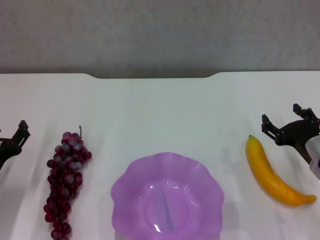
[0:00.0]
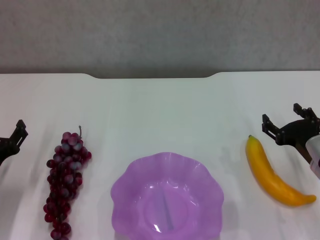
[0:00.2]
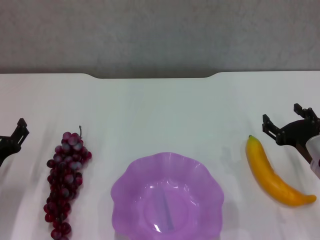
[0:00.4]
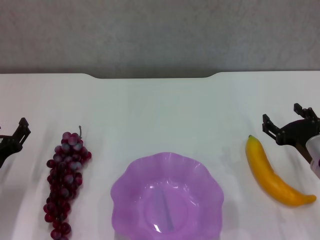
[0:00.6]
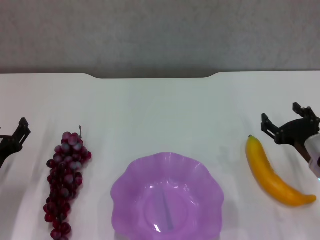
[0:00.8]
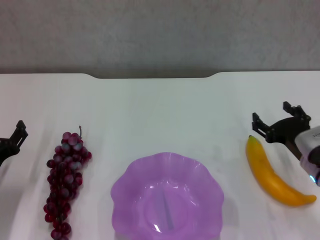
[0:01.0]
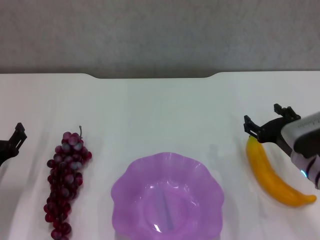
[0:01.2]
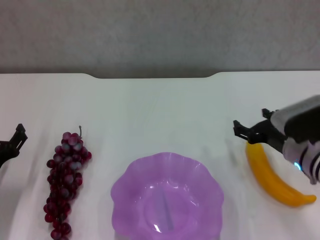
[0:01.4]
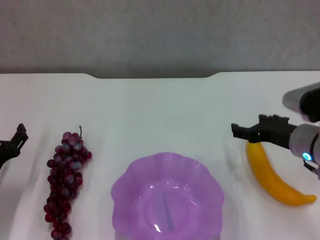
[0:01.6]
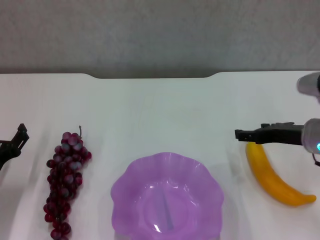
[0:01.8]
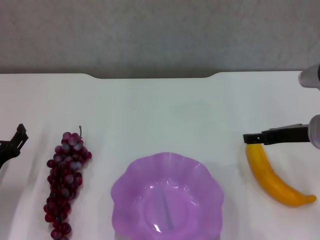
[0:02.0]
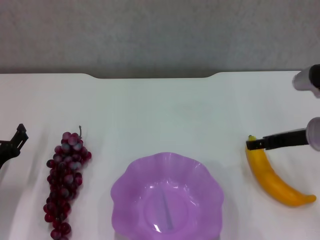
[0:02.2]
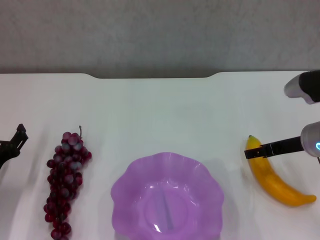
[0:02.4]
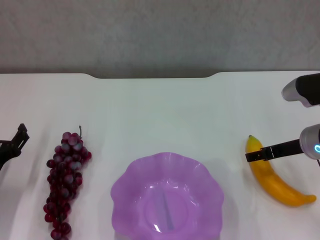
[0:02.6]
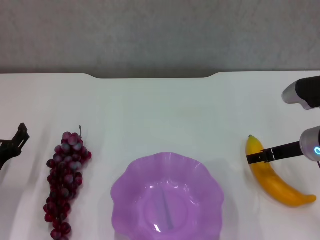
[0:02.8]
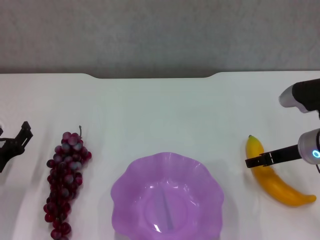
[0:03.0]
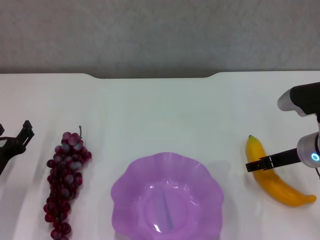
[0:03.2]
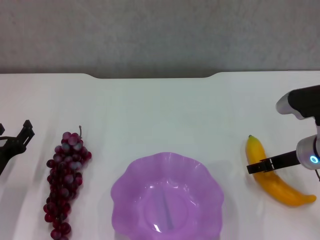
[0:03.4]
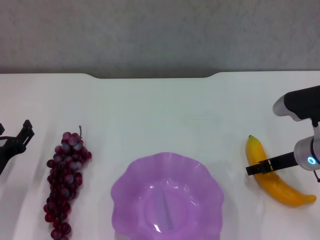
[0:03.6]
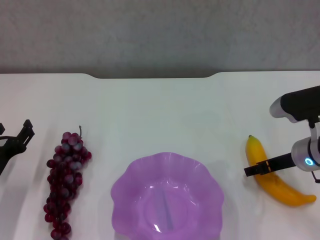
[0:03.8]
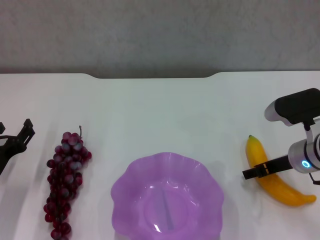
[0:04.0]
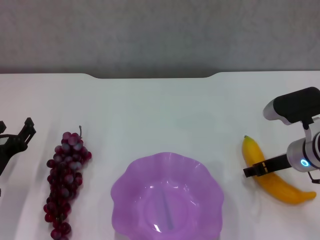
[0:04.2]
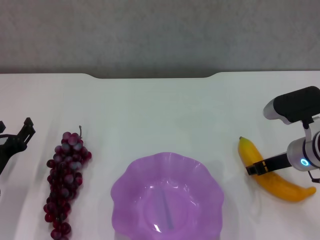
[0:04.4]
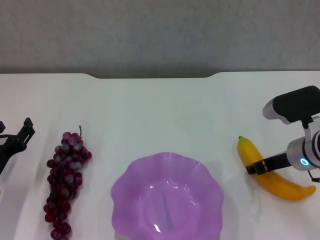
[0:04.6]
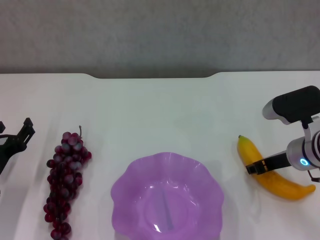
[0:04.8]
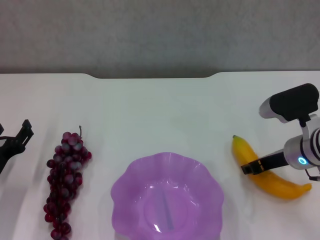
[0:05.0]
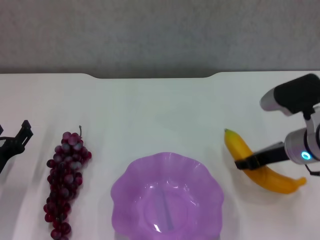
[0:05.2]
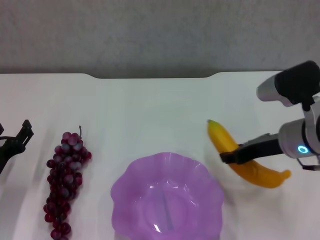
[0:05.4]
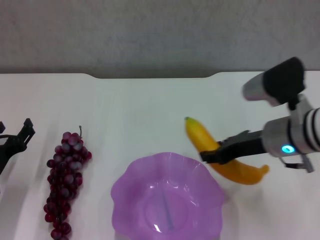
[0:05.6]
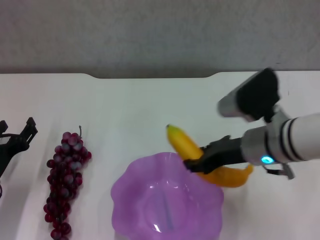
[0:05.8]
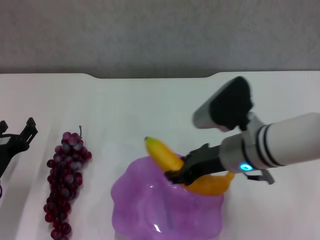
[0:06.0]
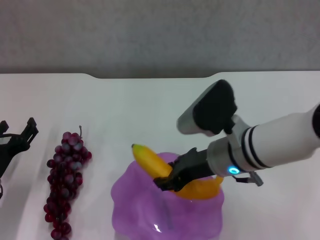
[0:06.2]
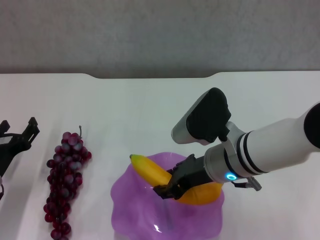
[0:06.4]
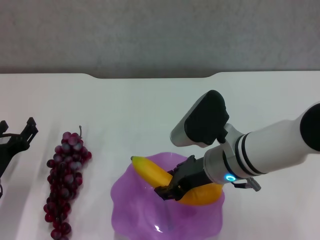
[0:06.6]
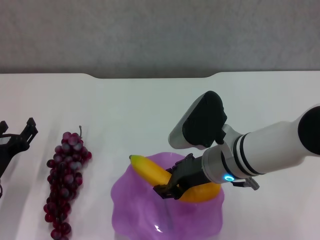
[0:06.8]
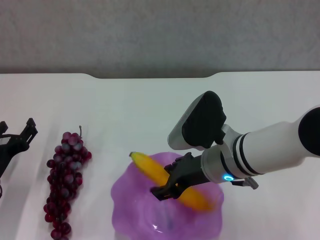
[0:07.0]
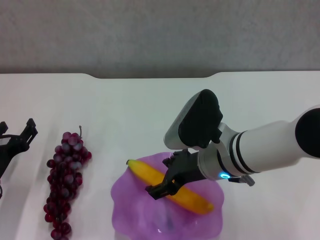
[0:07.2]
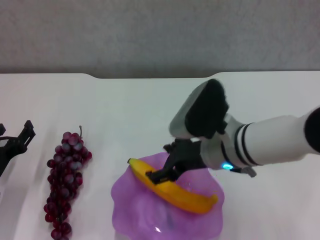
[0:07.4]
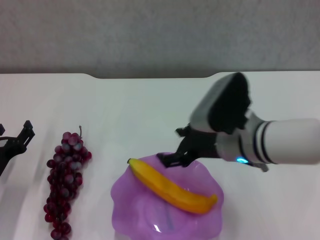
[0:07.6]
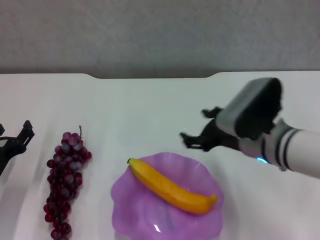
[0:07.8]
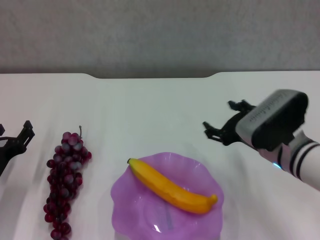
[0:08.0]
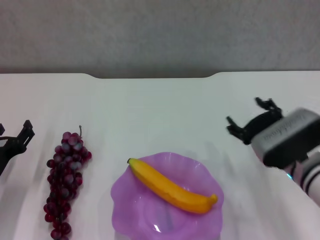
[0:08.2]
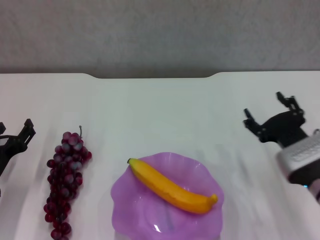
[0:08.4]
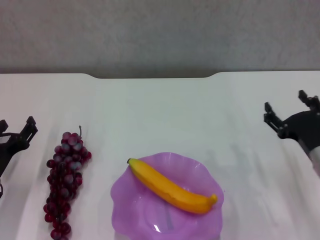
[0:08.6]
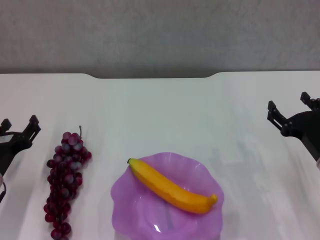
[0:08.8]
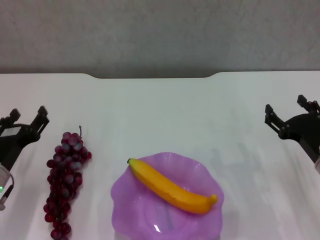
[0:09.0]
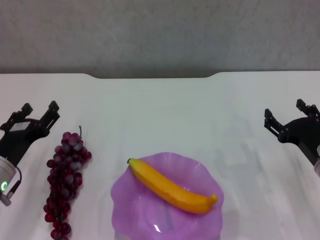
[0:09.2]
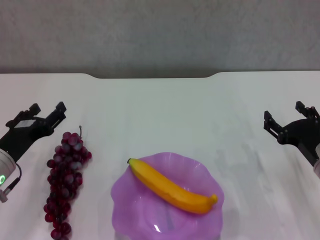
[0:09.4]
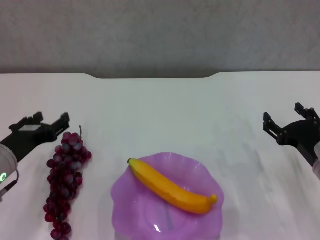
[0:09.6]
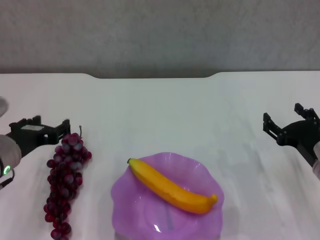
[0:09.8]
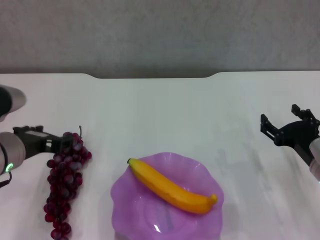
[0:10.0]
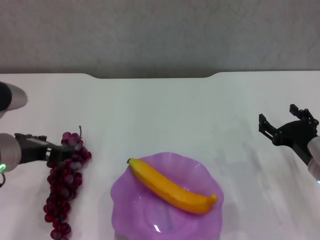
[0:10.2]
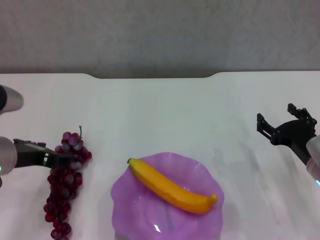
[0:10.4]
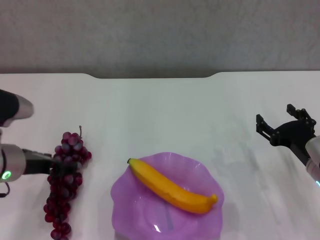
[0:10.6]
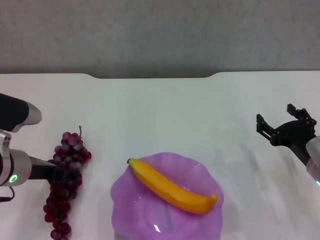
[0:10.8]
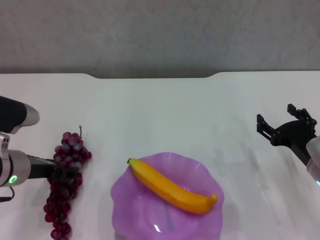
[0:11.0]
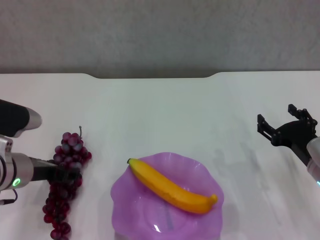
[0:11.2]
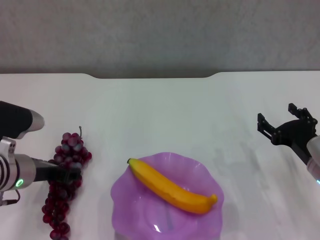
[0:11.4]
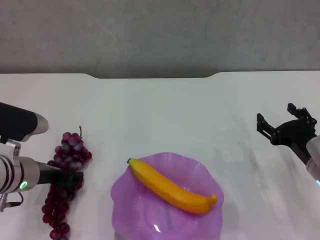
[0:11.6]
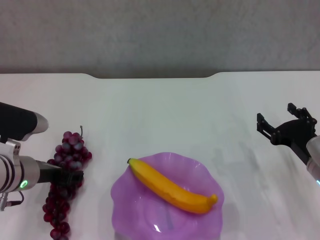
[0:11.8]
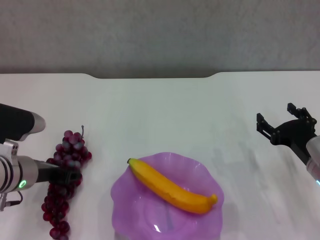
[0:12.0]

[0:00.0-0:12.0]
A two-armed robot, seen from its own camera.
Step, 0:00.0 to 0:04.4: Grasp the banana with right gripper.
Step, 0:04.6 to 0:07.6: Place the banana in the purple plate with right gripper.
0:00.0 to 0:01.6: The right gripper moves upward, some 5 cm.
0:03.0 to 0:04.4: The right gripper closes its fingers.
0:04.4 to 0:06.0: The right gripper heads to the left and upward, covering about 10 cm, and closes its fingers.
0:06.0 to 0:07.6: The right gripper opens its fingers.
0:07.6 to 0:09.0: The right gripper goes some 15 cm to the right and downward.
0:09.0 to 0:10.4: The left gripper shifts some 10 cm upward.
0:10.4 to 0:12.0: The left gripper travels downward by approximately 5 cm.

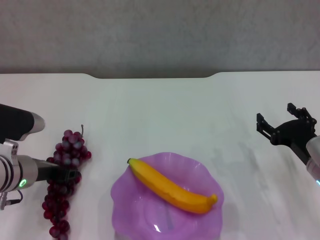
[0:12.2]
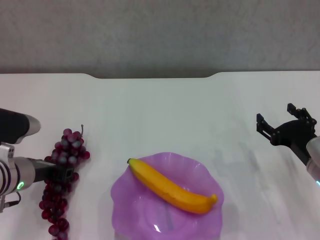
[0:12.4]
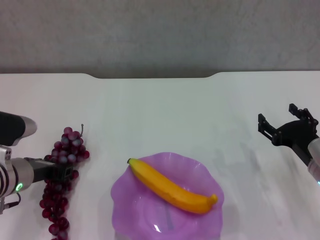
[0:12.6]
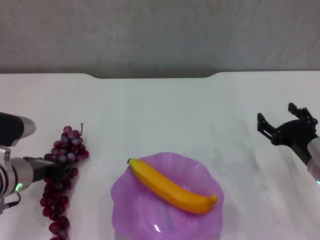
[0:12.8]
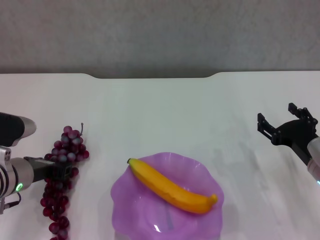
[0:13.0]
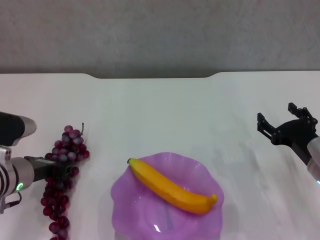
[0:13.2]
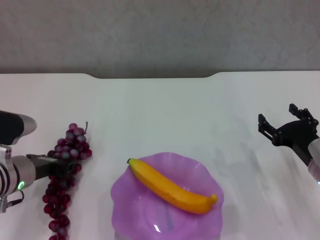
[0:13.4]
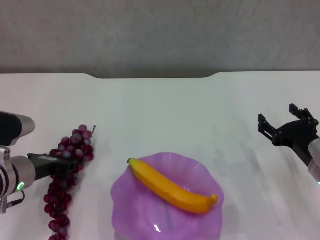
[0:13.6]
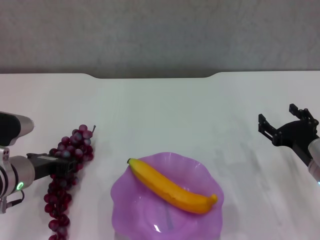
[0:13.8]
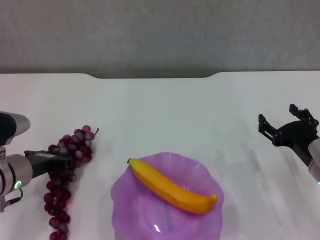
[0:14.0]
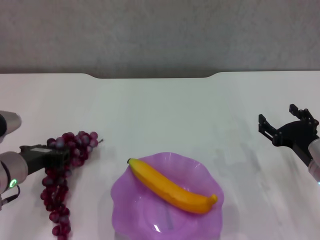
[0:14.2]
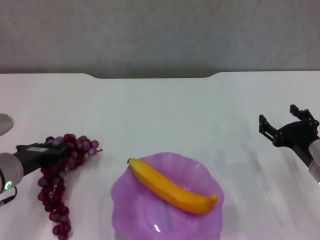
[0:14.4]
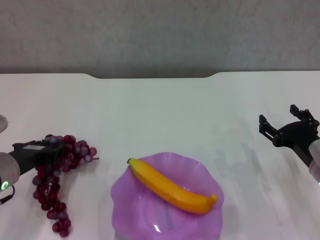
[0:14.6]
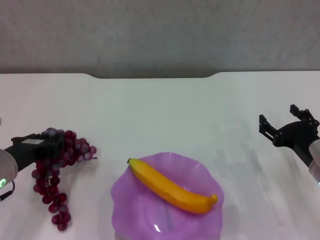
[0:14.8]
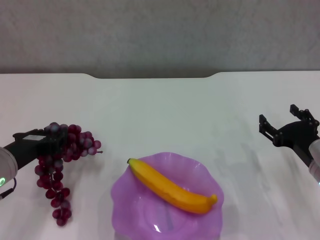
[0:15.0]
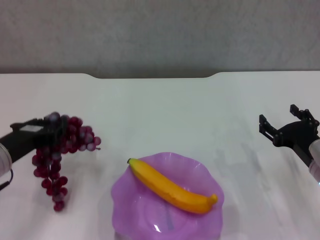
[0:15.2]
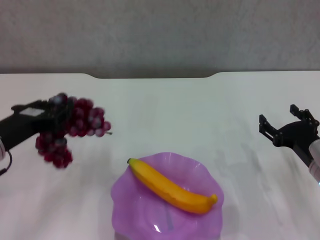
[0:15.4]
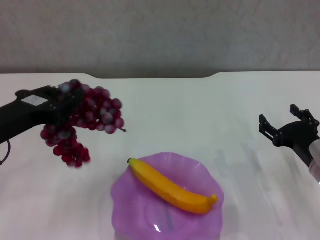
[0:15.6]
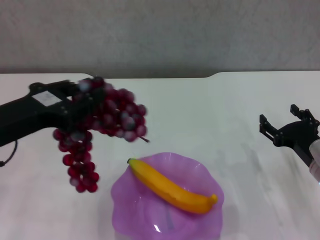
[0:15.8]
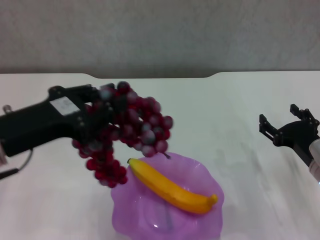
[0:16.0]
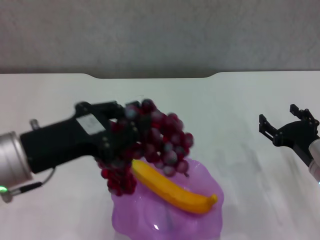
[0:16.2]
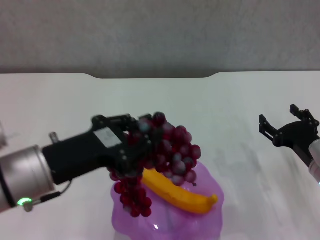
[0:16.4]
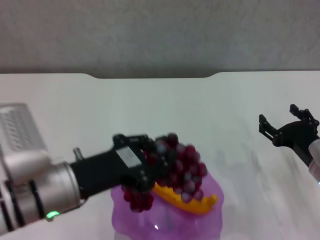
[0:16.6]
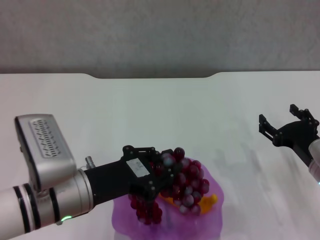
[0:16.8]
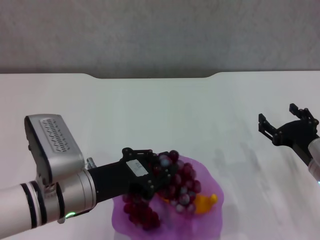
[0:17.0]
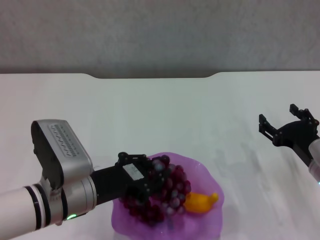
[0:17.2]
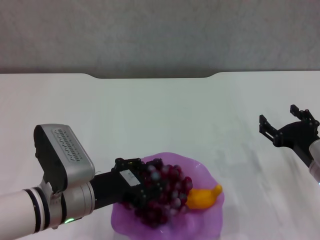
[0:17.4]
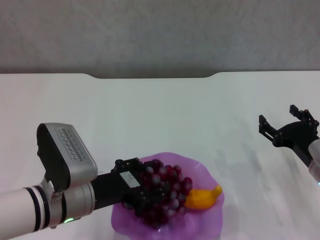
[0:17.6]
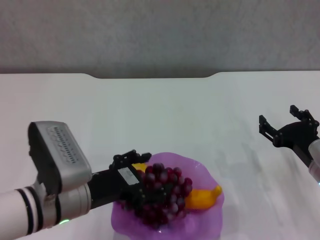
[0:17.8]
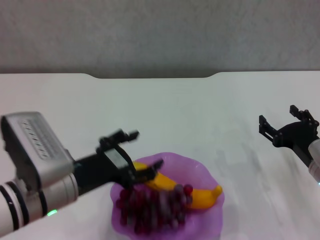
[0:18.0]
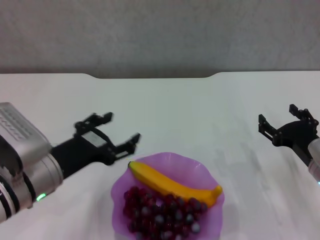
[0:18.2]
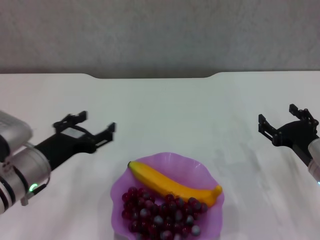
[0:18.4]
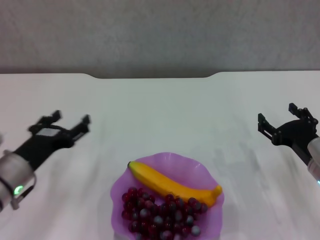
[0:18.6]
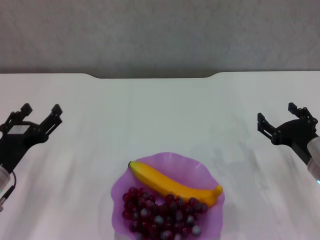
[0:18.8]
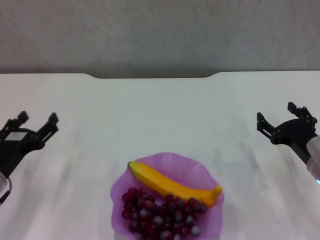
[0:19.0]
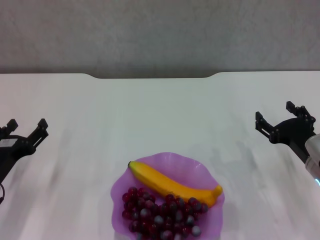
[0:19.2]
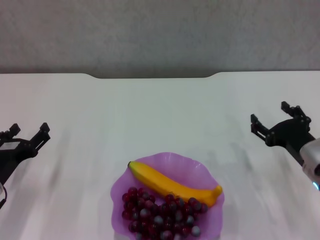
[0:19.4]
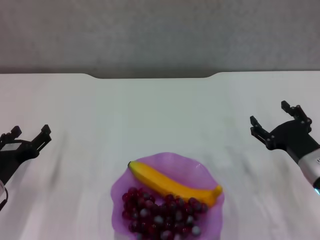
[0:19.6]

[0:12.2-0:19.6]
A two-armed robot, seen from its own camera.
Step, 0:12.4 to 0:17.8: Place the grape in the purple plate with left gripper.
0:12.2 to 0:13.6: There are only small adjustments of the grippers.
0:13.6 to 0:15.2: The left gripper changes place by about 5 cm.
0:15.2 to 0:16.6: The left gripper moves to the right, some 10 cm.
0:16.6 to 0:18.2: The left gripper opens its fingers.
0:18.2 to 0:19.6: The left gripper travels to the left and downward by approximately 15 cm.
